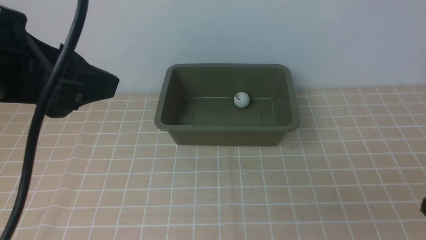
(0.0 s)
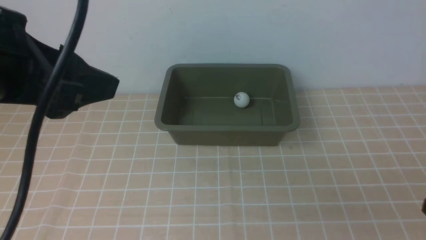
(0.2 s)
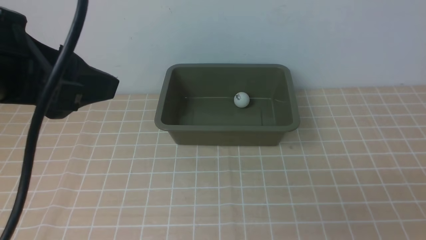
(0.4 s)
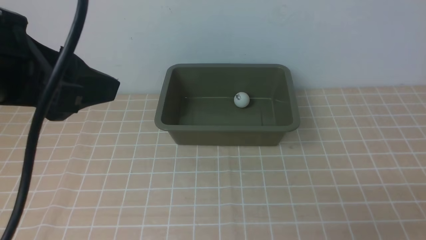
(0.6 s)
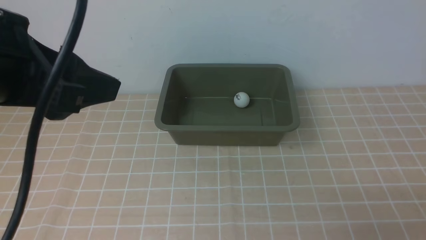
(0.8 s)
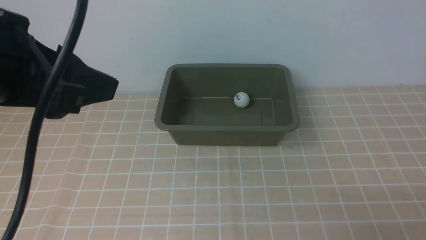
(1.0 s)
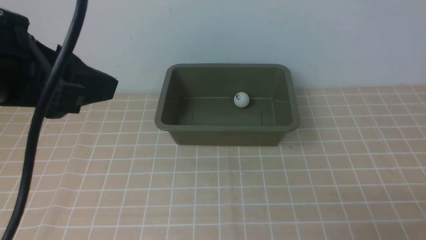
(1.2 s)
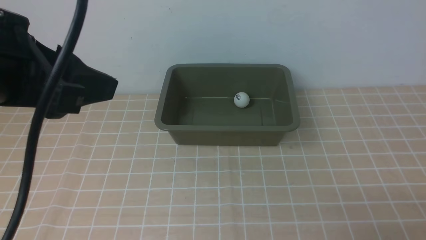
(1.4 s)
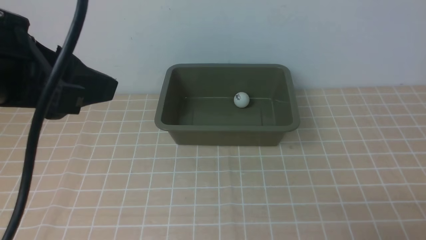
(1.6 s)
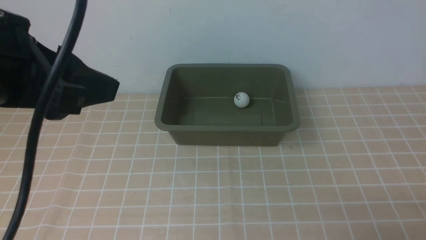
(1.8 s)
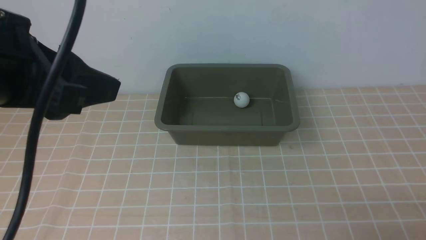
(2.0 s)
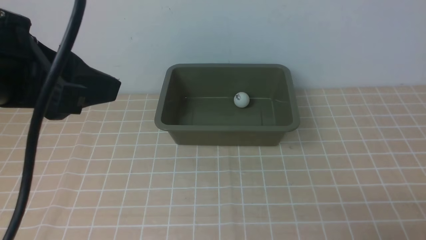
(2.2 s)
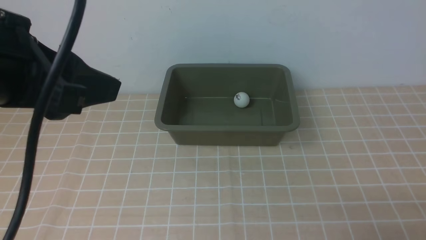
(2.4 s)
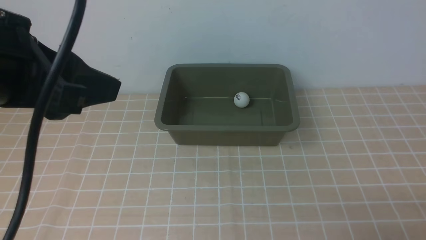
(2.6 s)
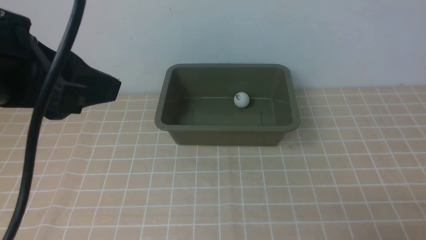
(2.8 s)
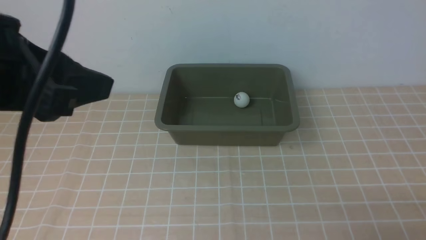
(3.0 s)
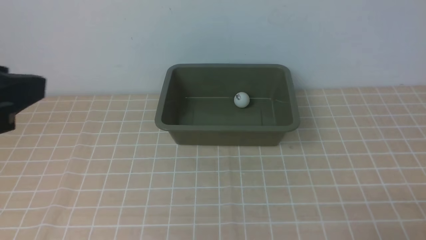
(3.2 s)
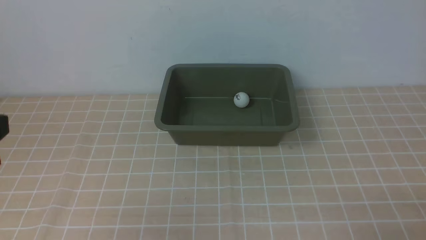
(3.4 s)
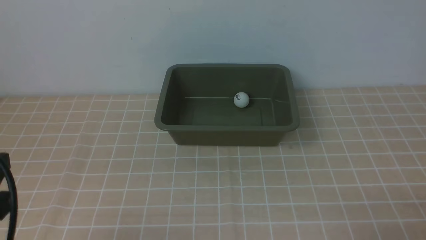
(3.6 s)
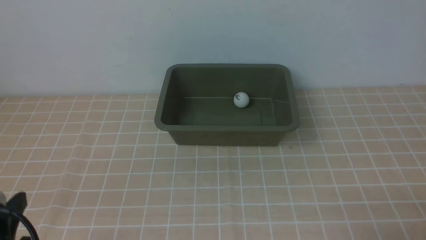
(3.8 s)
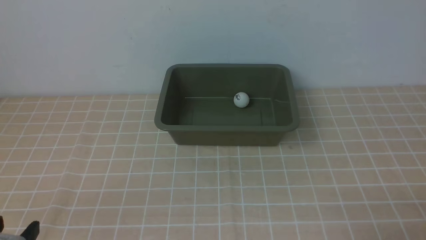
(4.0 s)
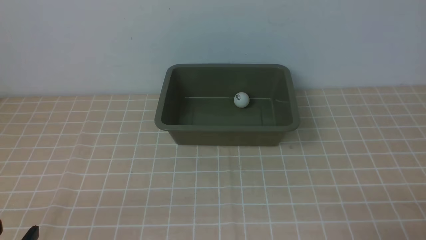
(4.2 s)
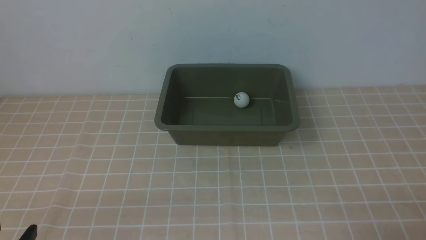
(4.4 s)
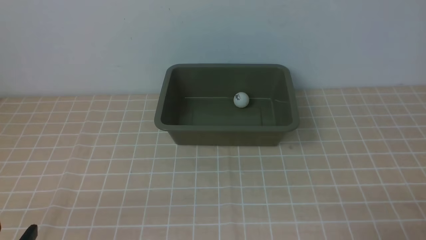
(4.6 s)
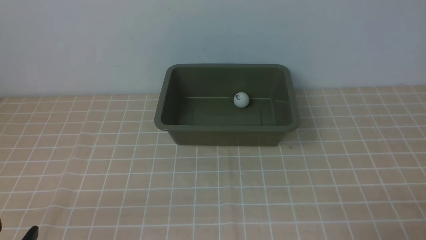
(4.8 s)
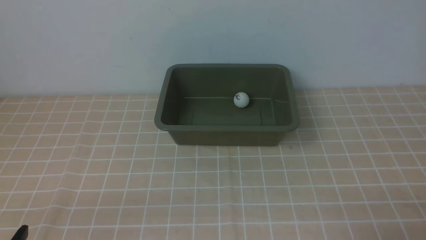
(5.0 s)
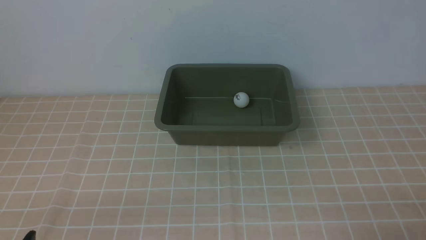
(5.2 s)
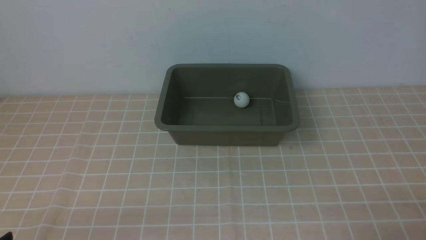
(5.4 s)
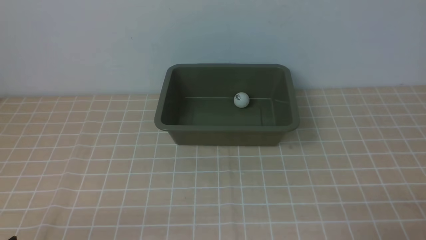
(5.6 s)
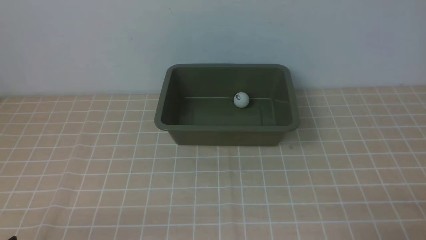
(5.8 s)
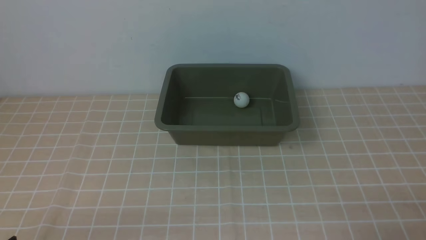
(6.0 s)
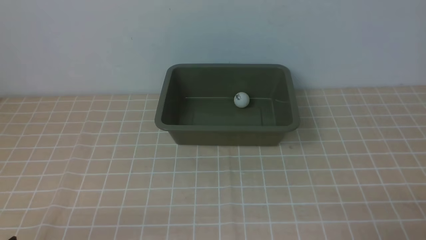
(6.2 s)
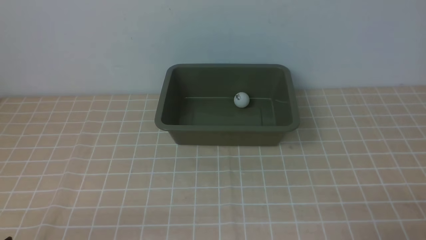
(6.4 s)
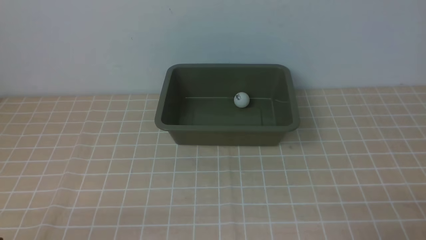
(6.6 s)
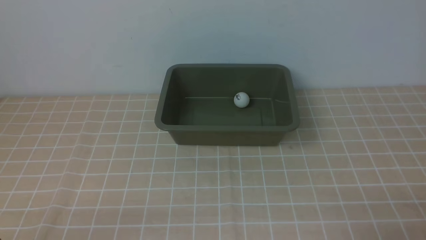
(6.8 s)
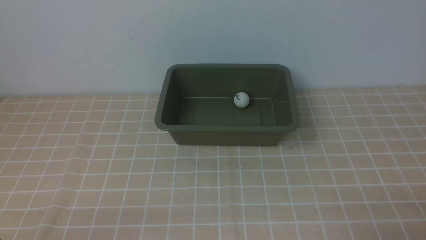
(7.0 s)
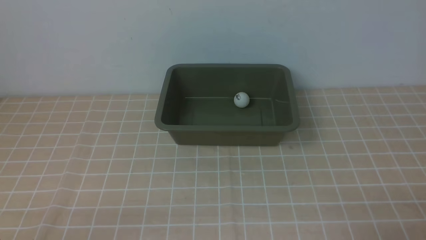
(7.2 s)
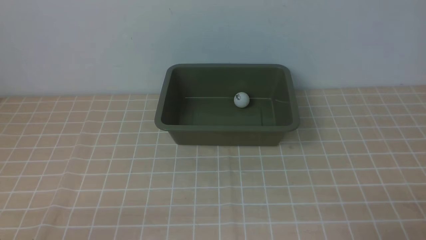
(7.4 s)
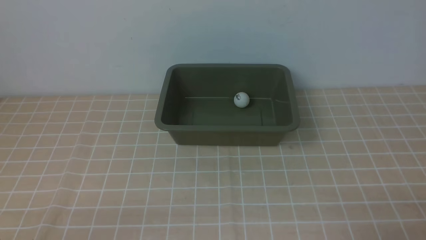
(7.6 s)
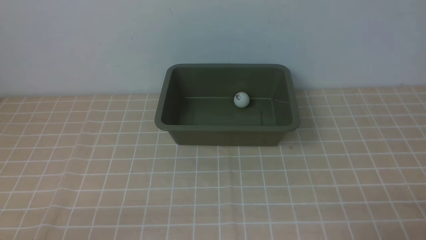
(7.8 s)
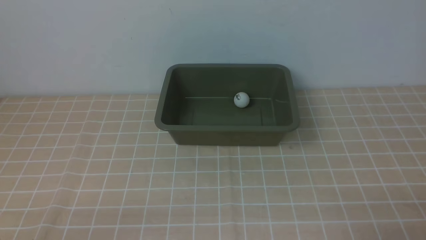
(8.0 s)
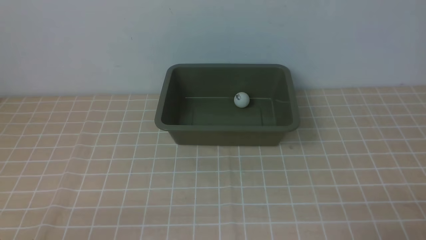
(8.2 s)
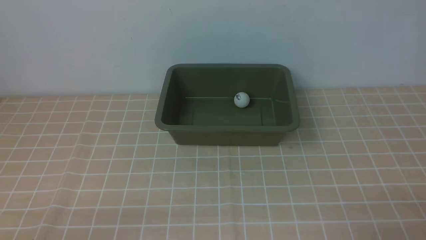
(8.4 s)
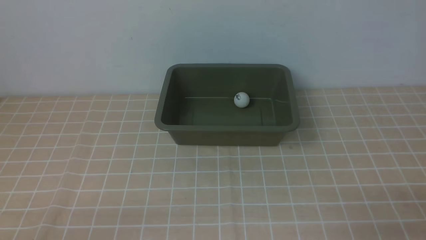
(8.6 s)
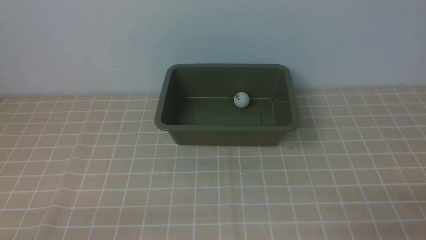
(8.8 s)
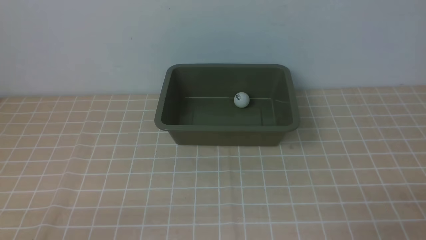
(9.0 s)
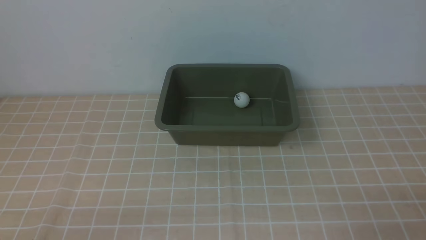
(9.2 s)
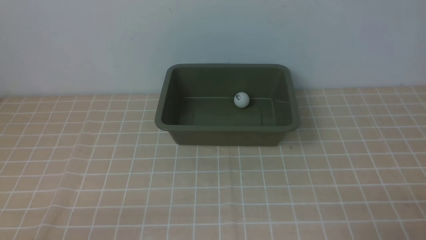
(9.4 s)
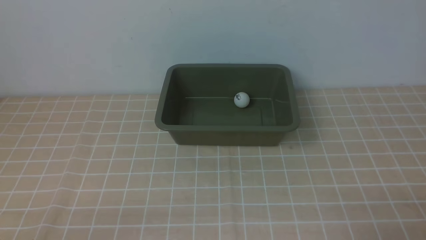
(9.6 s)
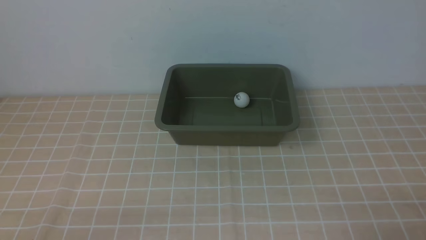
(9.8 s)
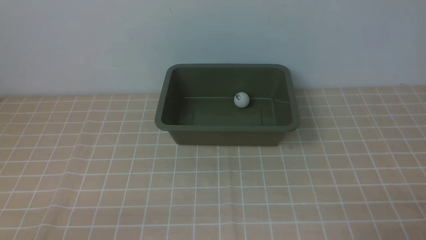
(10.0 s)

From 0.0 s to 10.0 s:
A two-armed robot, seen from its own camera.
From 0.0 s to 1.4 s: The left gripper closes up.
From 1.4 s to 2.8 s: Neither gripper changes place.
From 2.8 s to 4.2 s: The left gripper goes some 25 cm downward and backward.

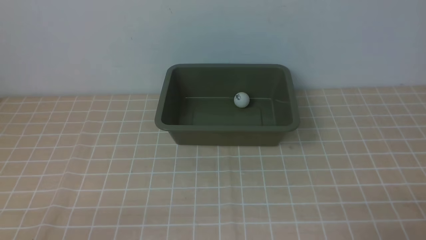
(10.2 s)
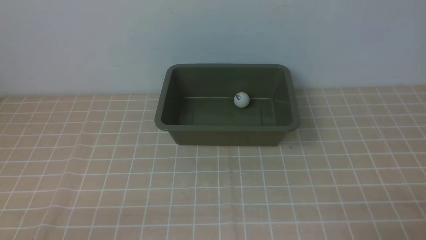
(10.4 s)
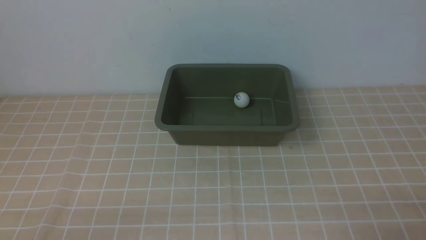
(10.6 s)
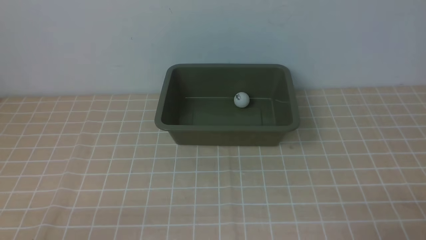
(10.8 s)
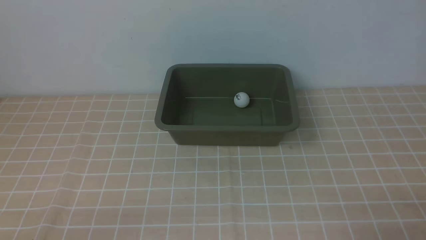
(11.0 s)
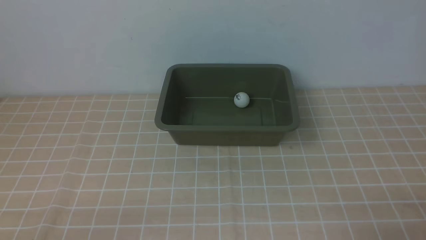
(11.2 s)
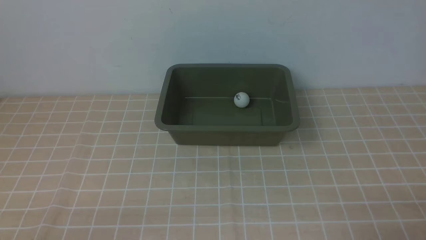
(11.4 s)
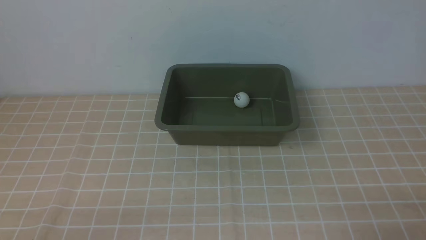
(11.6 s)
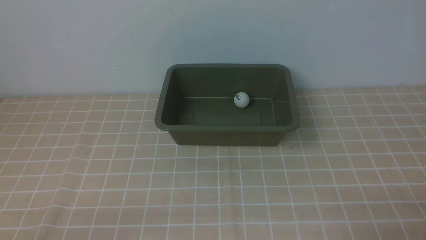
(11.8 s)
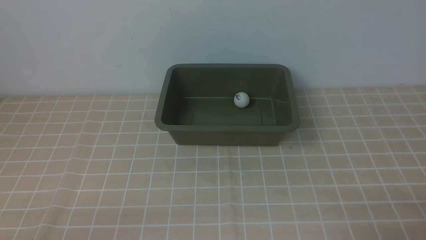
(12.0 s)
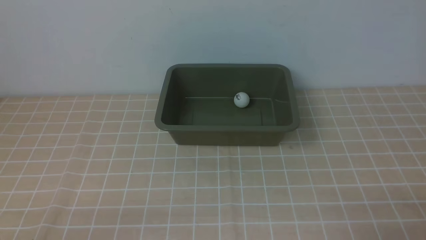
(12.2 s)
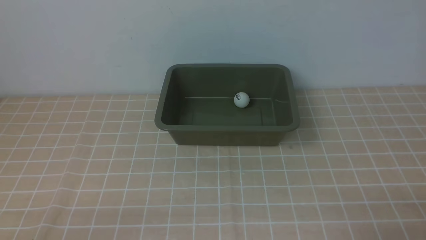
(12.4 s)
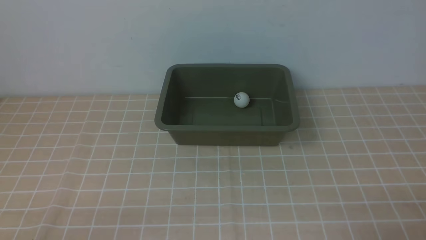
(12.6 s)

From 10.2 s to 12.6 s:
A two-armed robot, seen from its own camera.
From 10.2 s to 12.6 s: Both grippers stay put.

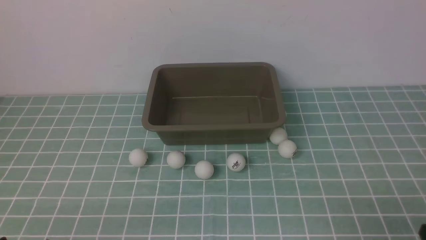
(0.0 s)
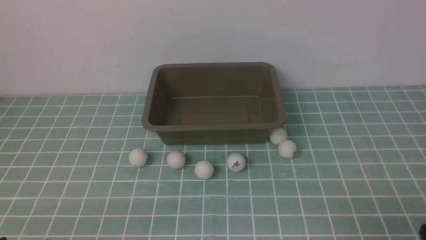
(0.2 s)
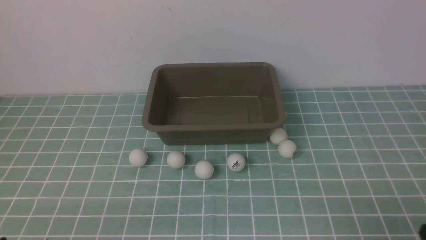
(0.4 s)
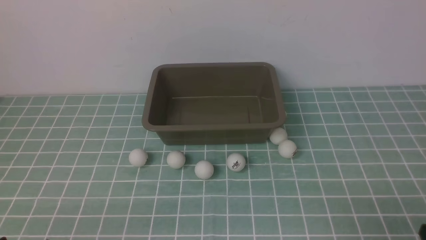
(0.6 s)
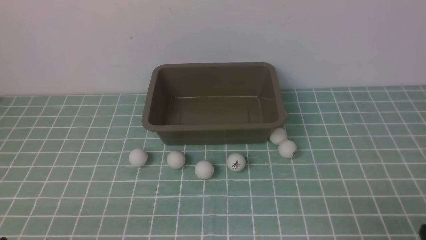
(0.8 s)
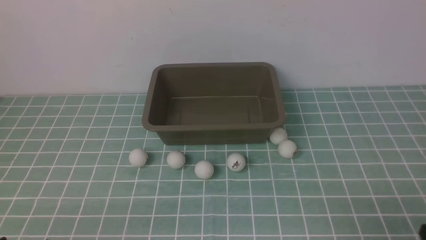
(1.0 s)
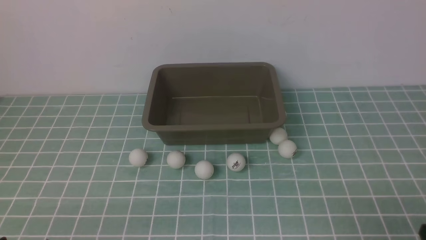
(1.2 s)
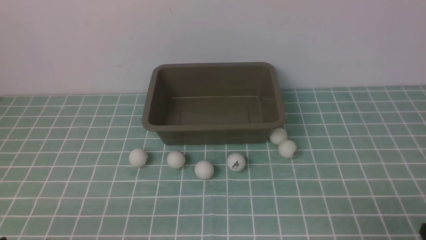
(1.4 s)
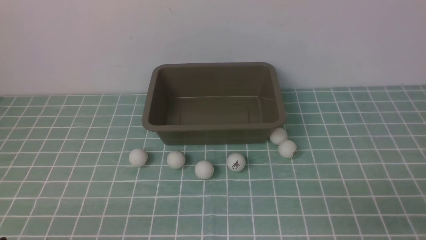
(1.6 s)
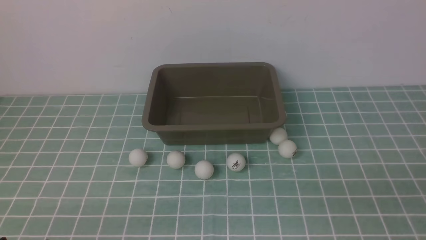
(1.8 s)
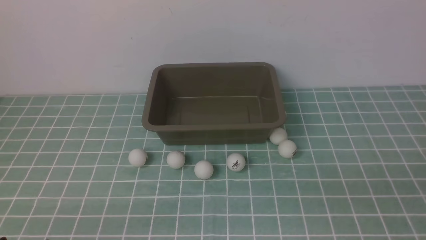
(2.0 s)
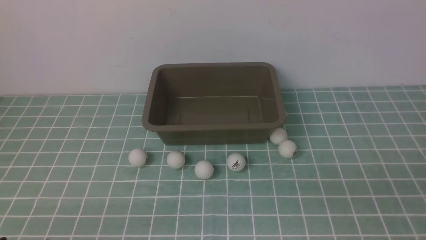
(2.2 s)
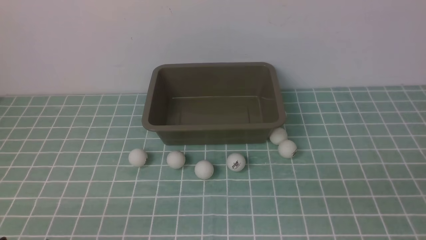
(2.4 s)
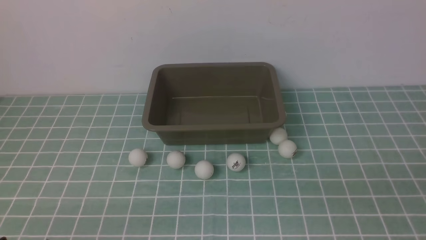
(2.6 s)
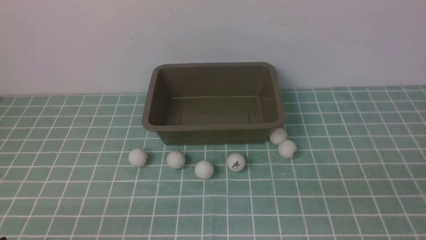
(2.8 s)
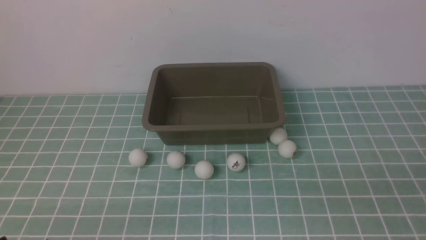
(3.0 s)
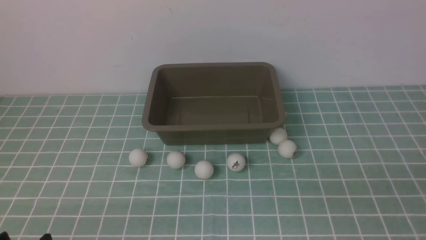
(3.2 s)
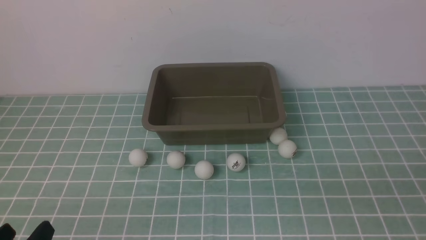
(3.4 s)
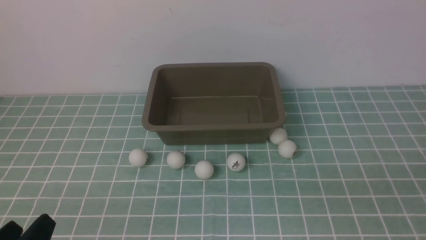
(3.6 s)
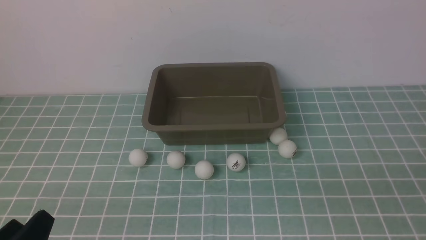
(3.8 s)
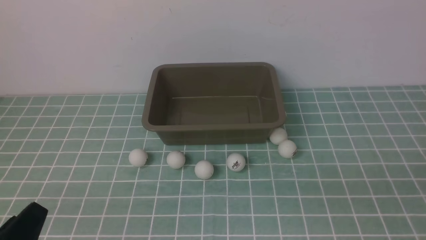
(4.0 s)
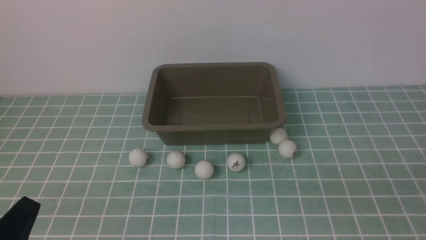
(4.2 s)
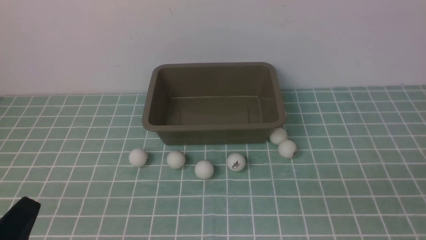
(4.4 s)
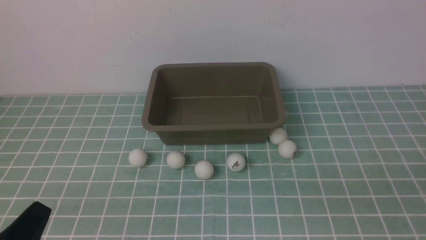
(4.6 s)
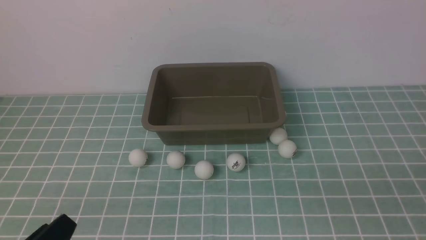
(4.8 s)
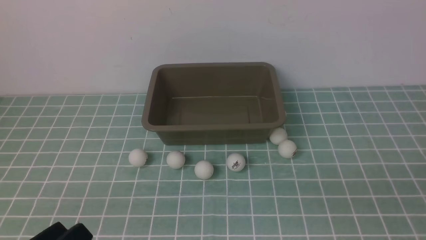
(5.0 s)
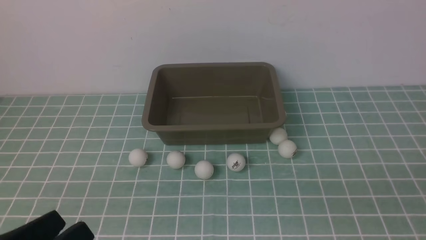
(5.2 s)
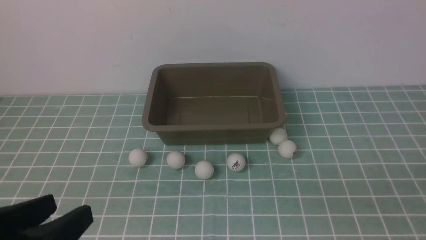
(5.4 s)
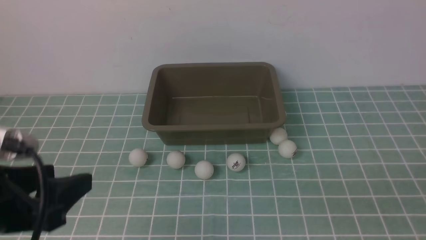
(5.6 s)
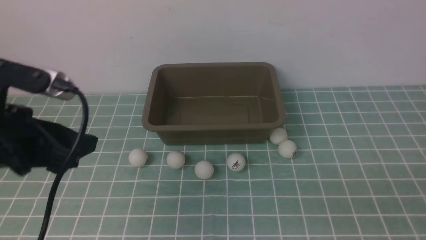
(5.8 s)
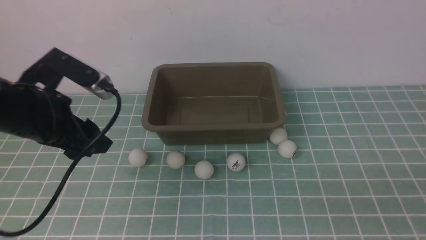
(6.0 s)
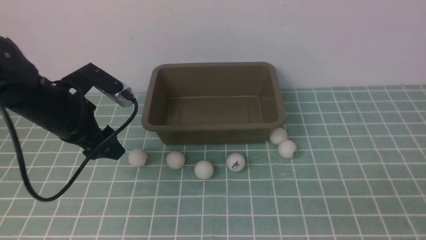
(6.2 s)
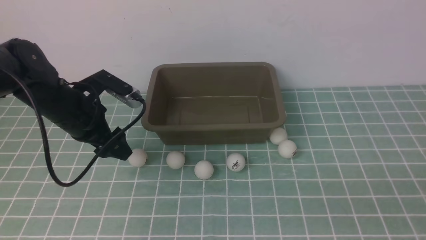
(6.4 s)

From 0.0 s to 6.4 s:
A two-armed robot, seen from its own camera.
From 3.2 s to 4.8 s: The left gripper moves approximately 5 cm.
From 4.8 s to 6.4 s: The left gripper travels forward by some 35 cm, and opens up.
